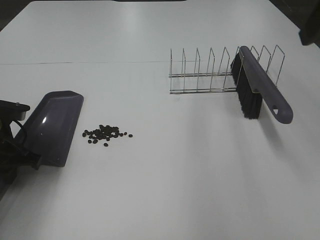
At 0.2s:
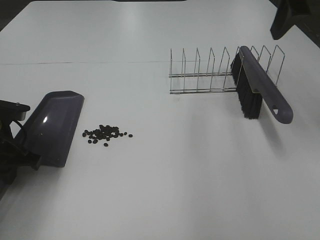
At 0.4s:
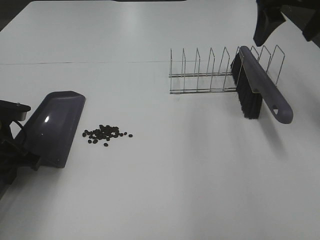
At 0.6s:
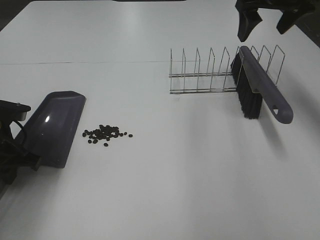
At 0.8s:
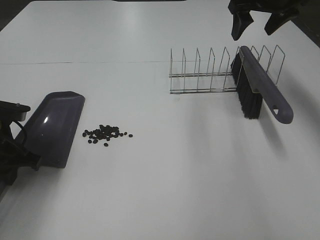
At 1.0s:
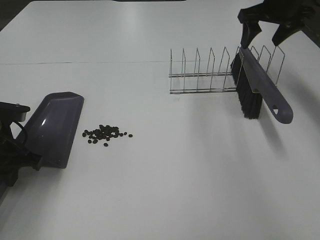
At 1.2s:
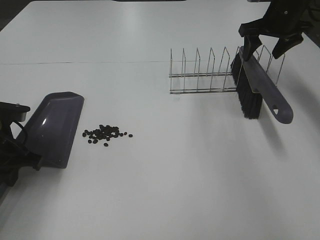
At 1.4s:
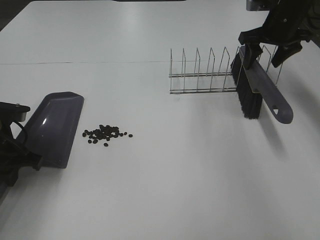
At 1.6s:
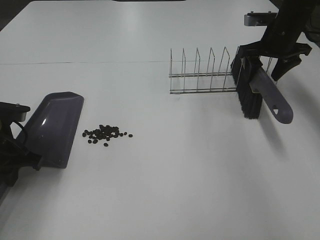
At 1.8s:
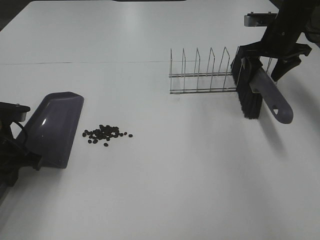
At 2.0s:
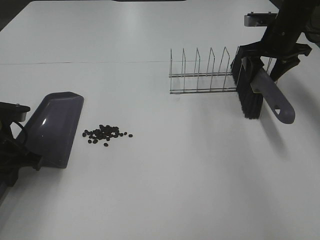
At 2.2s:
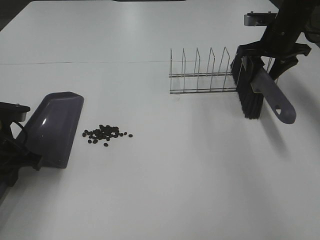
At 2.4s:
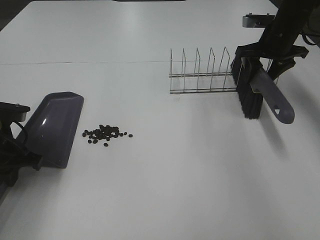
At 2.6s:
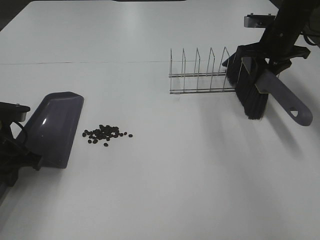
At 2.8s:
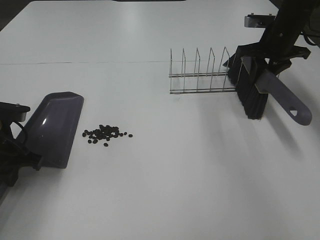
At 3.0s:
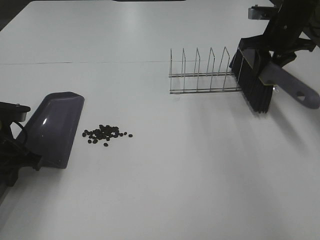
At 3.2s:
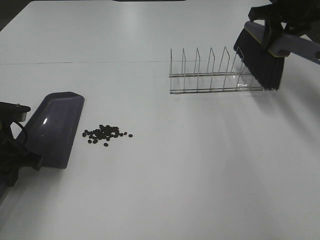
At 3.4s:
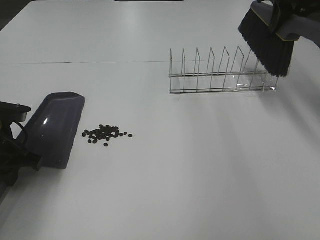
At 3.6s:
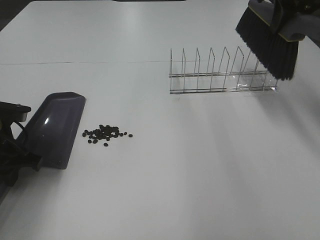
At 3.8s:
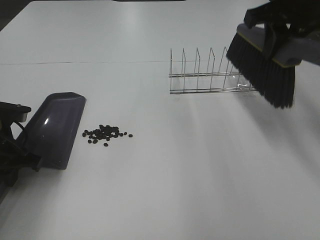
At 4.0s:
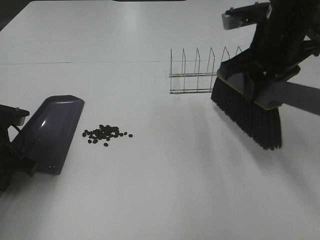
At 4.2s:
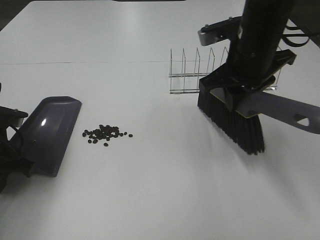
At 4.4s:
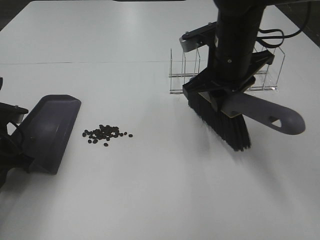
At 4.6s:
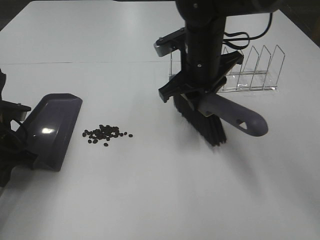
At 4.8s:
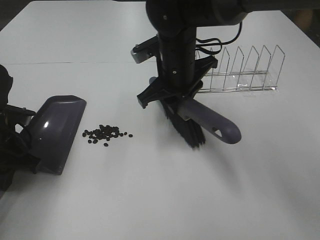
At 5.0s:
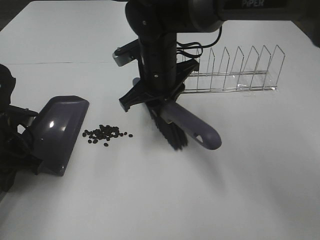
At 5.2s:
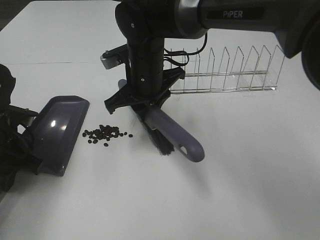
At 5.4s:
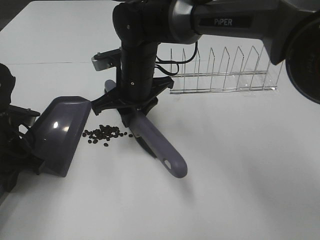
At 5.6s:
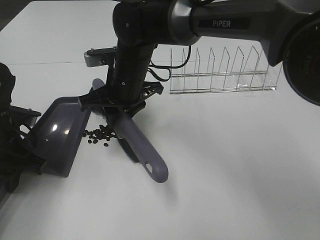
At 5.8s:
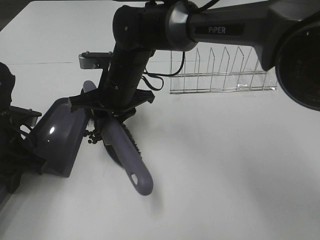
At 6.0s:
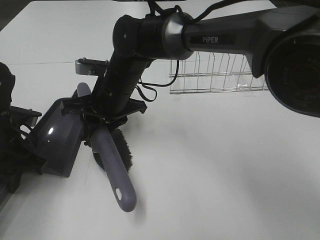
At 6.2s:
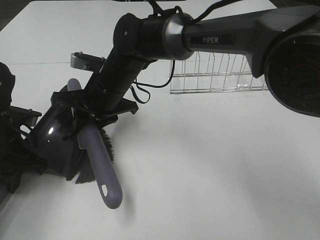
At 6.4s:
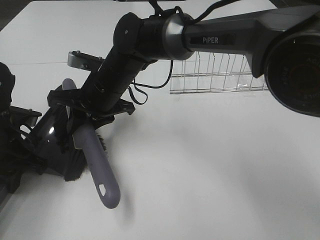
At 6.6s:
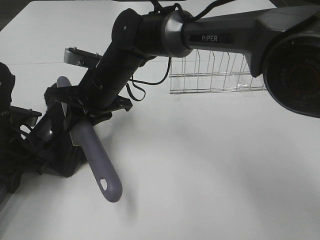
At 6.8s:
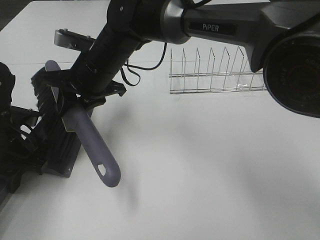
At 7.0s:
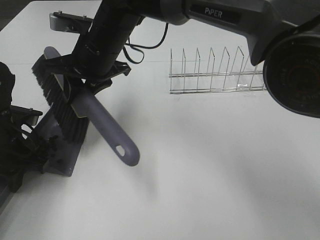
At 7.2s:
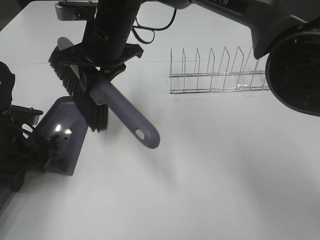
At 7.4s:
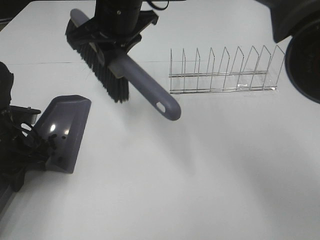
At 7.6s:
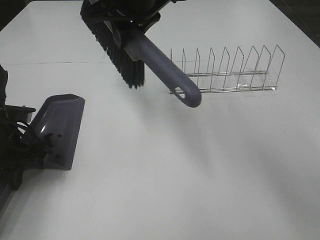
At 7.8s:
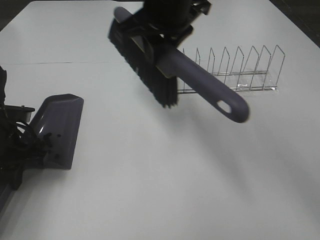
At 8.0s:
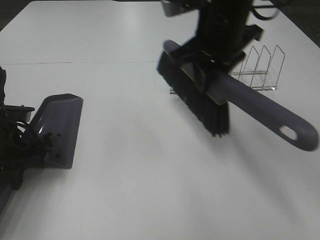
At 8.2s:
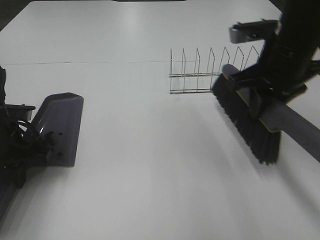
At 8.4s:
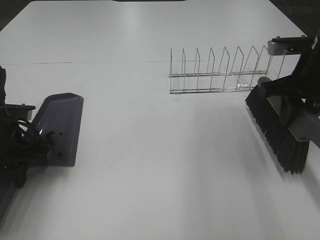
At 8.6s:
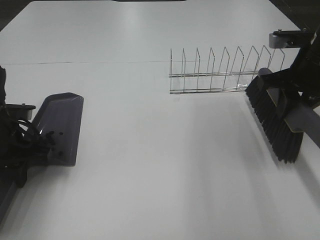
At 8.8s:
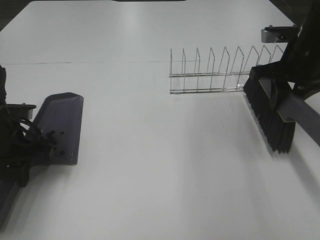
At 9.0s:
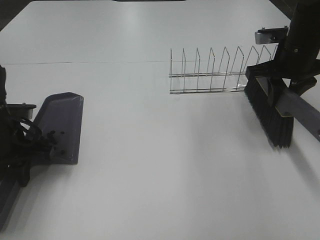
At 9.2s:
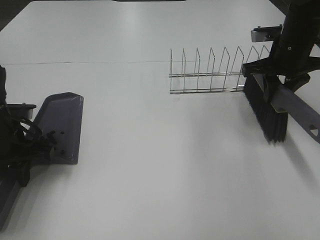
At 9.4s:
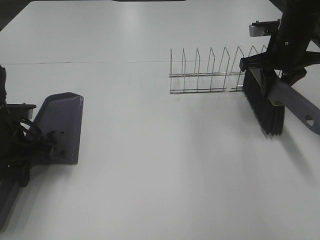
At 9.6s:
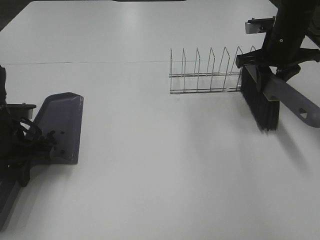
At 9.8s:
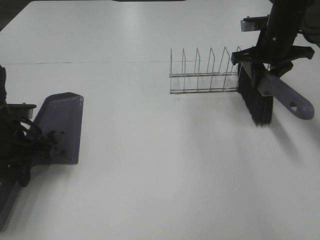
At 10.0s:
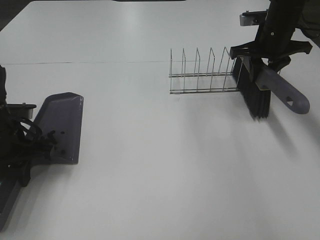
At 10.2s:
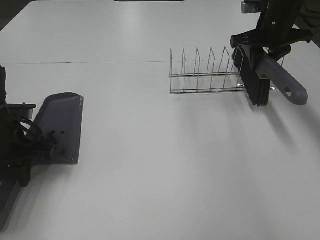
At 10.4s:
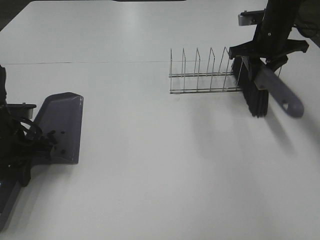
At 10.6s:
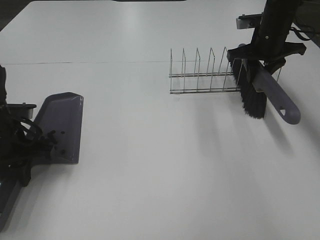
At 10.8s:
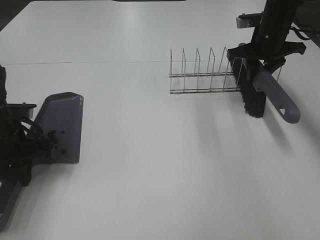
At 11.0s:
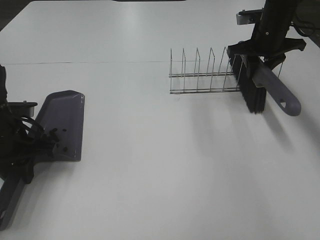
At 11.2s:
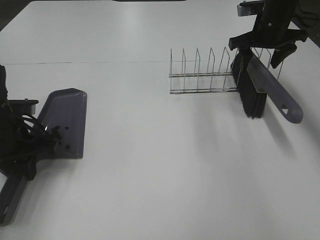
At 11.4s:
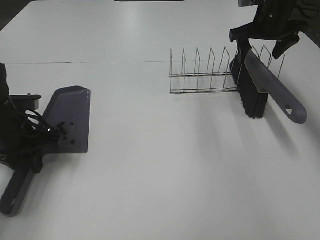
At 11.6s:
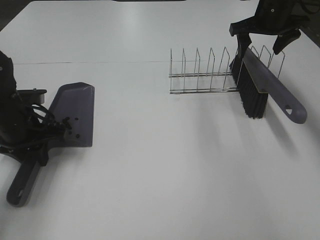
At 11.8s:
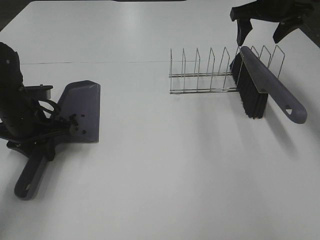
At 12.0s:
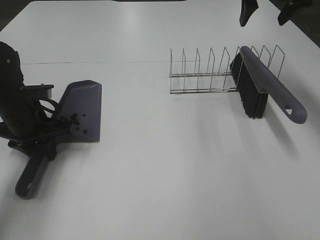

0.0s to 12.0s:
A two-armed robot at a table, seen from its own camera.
Task of the whole recording: Sweep Coffee Bean.
Step, 0.0s to 2.8s: Right hand:grab the broom.
Step, 3.0s to 7.0s: Right hand:sweep the coffee beans into the dustpan.
Step, 7.2s to 11.2s: Right hand:place the broom on the rack.
0.0s to 1.6s: The right gripper travels forward and downward by some 30 cm.
1.6s to 3.0s: The right gripper closes its fingers.
3.0s to 4.4s: The right gripper heads to the left and backward, covering roughly 20 cm.
4.4s to 6.0s: The right gripper moves to the left and downward, roughly 20 cm.
6.0s to 7.6s: The right gripper moves upward, about 15 cm.
7.6s to 9.0s: The right gripper moves to the right and downward, some 30 cm.
9.0s to 10.4s: The right gripper heads forward, covering approximately 10 cm.
10.4s to 12.0s: The right gripper travels upward by approximately 15 cm, and opens up.

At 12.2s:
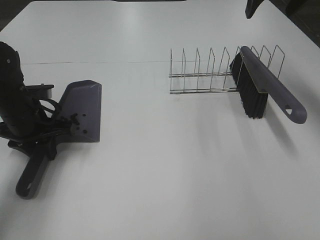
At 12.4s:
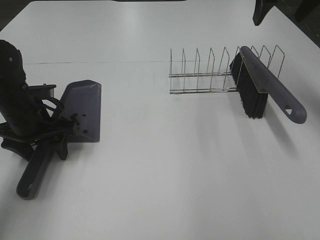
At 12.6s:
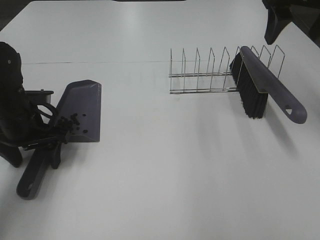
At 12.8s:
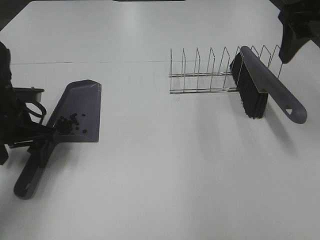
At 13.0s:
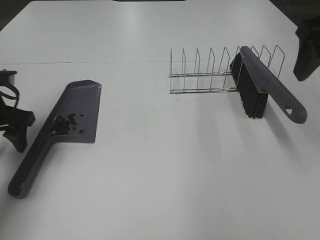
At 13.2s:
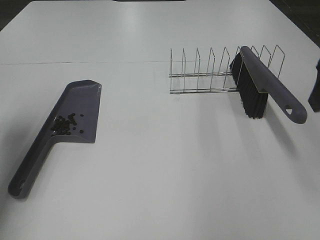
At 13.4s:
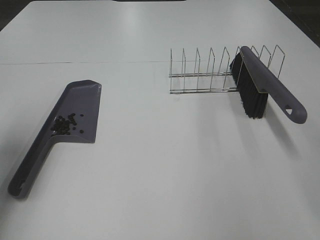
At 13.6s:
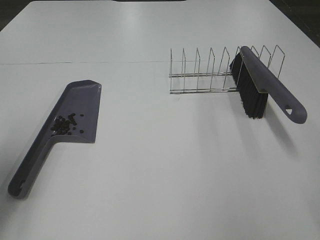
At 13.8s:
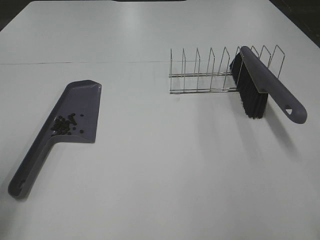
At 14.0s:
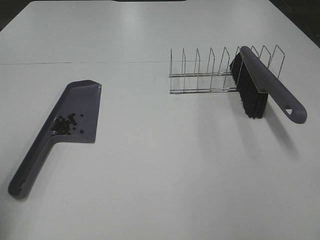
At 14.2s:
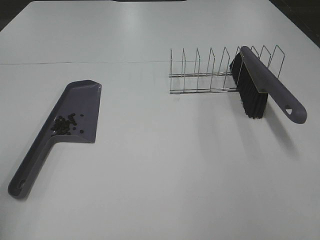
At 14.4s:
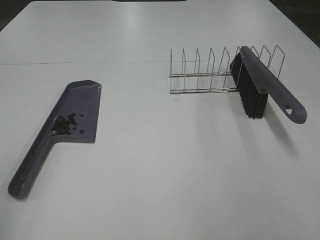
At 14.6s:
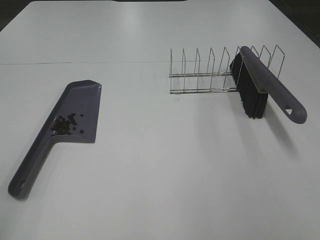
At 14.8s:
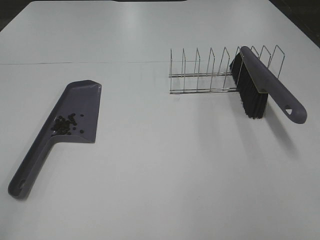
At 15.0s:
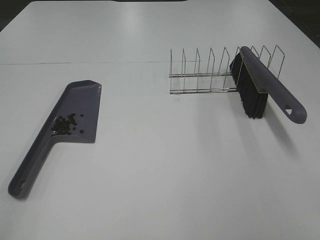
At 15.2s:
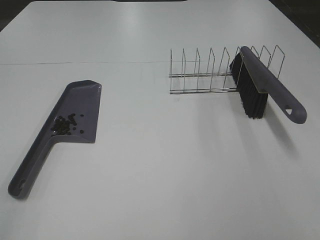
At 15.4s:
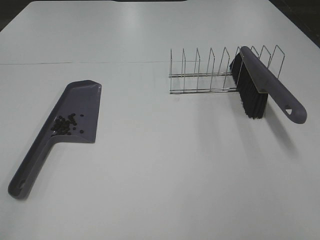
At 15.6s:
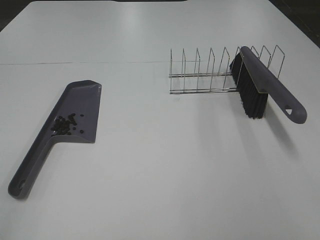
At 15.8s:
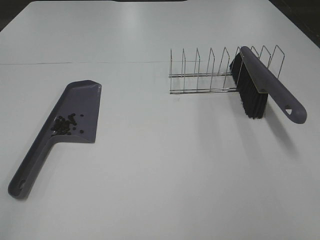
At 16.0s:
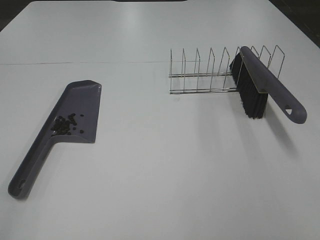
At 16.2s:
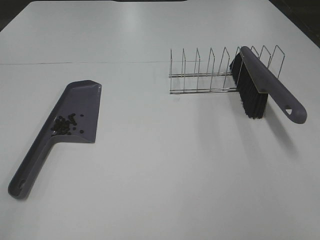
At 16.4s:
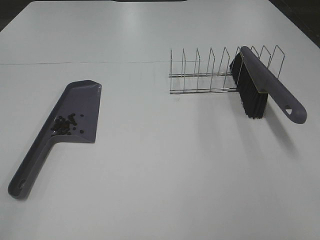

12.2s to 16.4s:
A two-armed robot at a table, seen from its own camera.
Task of the whole recording: Sweep Coffee Bean.
12.2s to 13.6s: The right gripper shifts roughly 30 cm backward. The left gripper travels upward, backward and to the left by roughly 20 cm, and opens up.
13.6s to 15.0s: The left gripper moves backward, approximately 20 cm.
15.0s to 16.4s: Both grippers stay put.

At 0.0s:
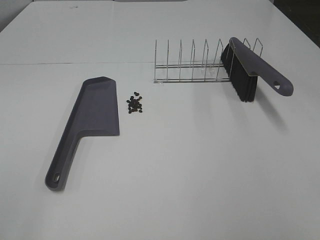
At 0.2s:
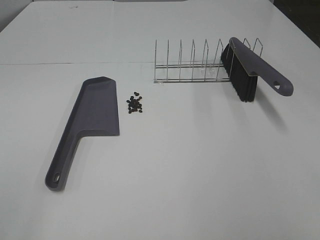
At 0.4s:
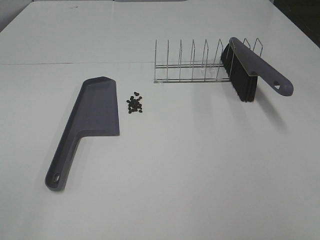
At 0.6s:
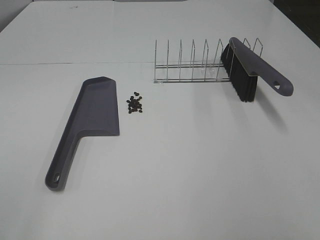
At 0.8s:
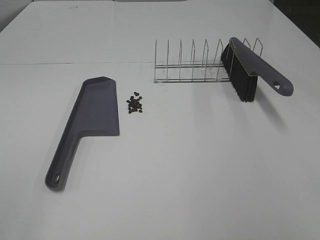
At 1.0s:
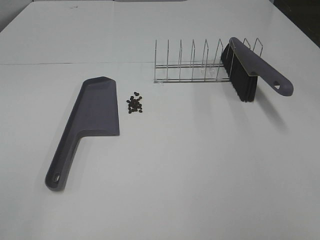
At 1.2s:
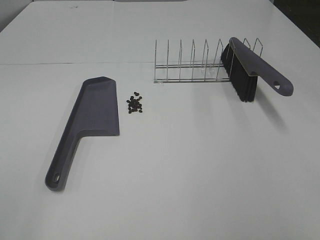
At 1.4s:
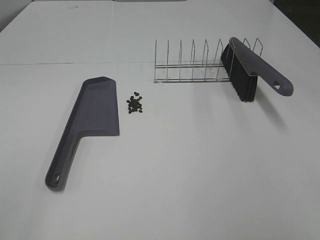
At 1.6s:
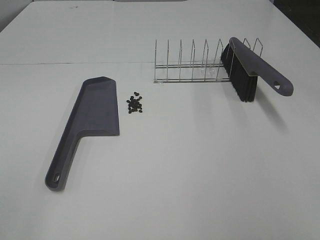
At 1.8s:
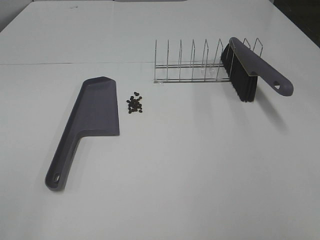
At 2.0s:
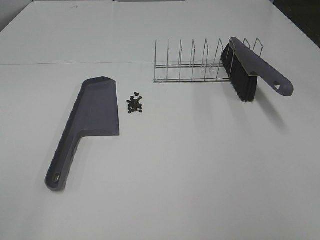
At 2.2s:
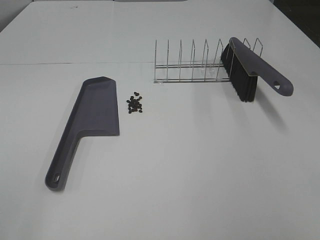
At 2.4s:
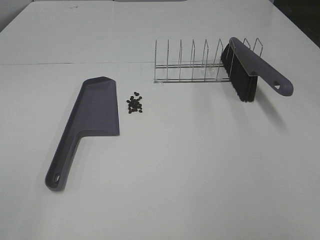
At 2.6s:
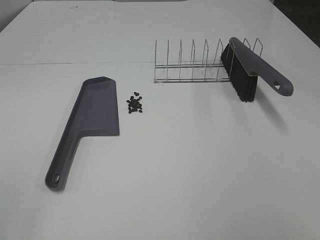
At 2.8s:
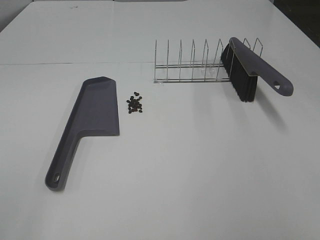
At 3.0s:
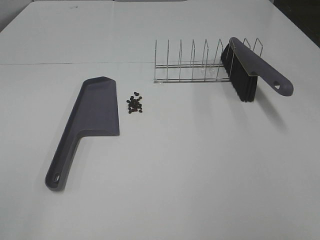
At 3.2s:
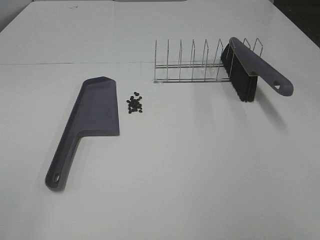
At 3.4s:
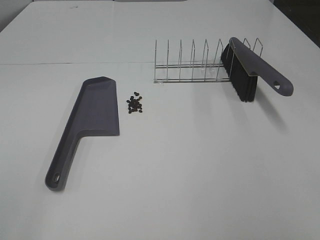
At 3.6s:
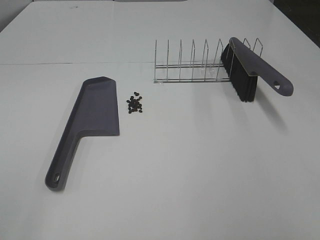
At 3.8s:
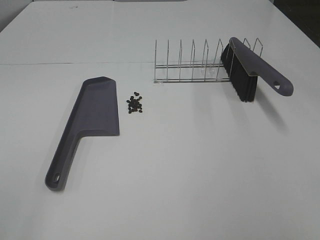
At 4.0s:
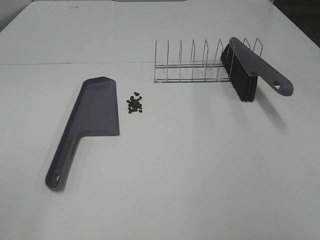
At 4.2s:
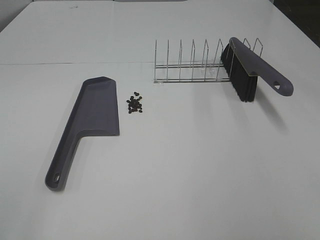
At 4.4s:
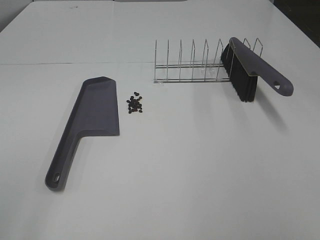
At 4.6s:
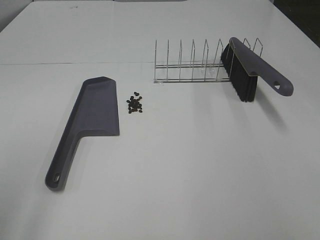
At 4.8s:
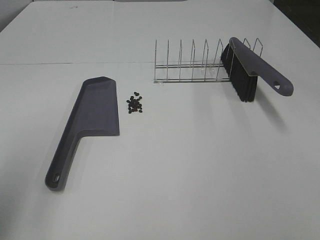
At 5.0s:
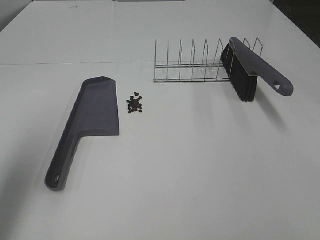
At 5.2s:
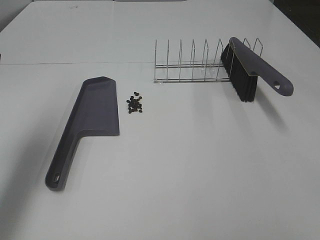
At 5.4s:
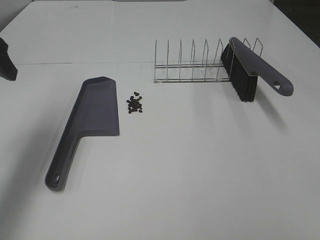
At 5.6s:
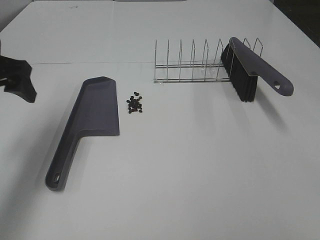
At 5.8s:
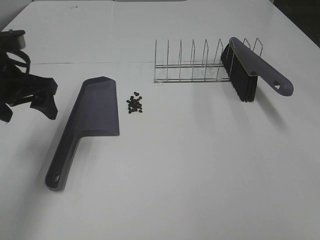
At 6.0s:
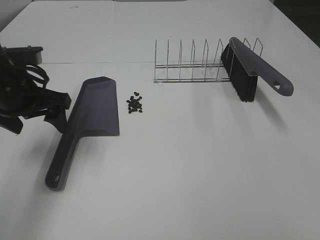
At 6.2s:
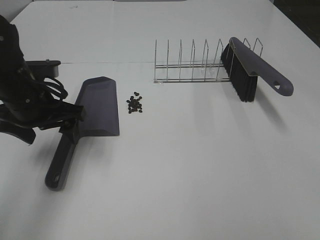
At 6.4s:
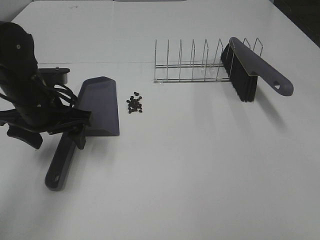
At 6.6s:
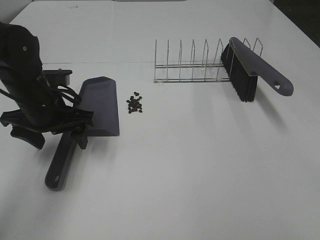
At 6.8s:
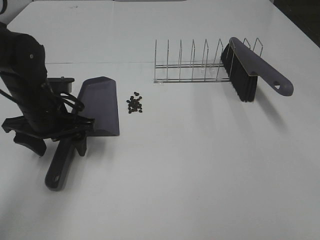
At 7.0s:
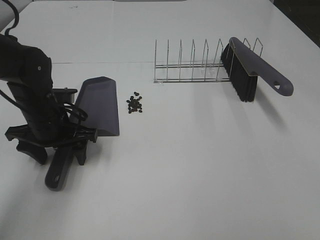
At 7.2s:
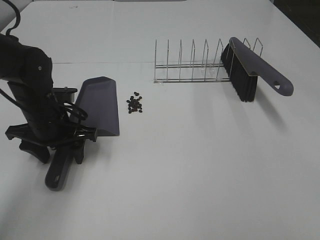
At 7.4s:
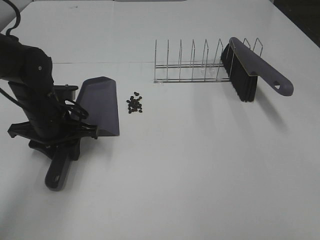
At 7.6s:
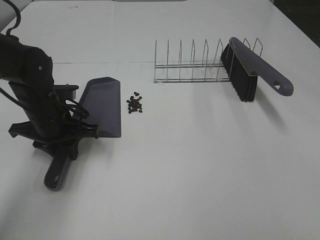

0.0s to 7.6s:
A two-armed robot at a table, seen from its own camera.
Task of the whole recording: Sweep Coffee Bean.
Step, 0.0s to 7.4s: Left hand: grab the dustpan.
0.0s to 3.0s: Both grippers stay about where they are.
4.6s to 6.0s: The left gripper goes some 25 cm forward and downward.
6.0s to 7.6s: The left gripper moves downward, roughly 10 cm, and closes.
